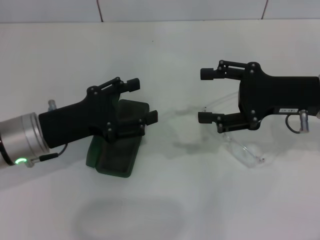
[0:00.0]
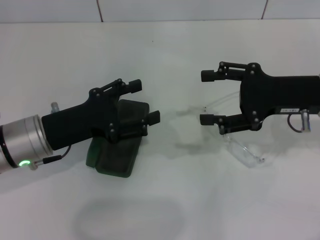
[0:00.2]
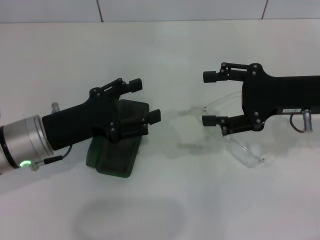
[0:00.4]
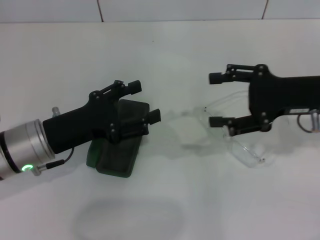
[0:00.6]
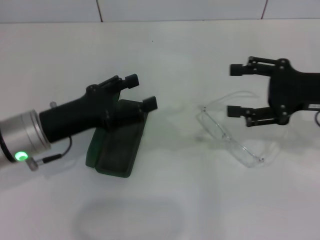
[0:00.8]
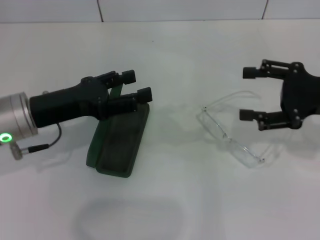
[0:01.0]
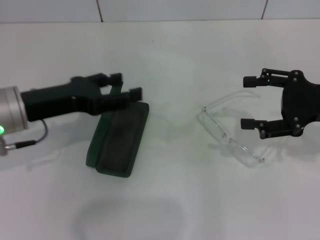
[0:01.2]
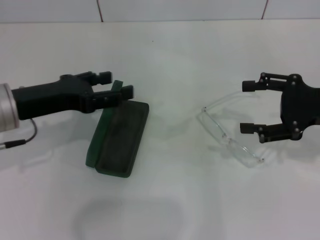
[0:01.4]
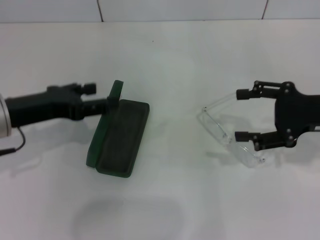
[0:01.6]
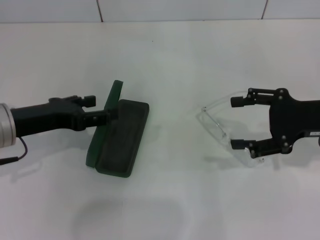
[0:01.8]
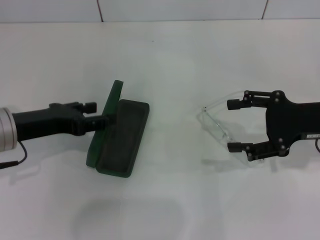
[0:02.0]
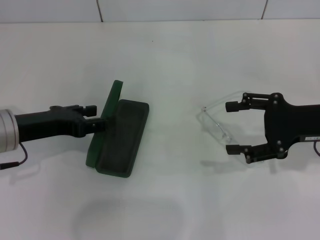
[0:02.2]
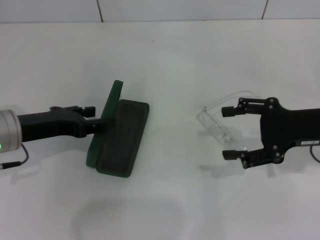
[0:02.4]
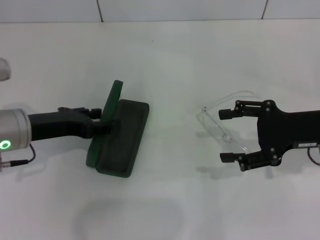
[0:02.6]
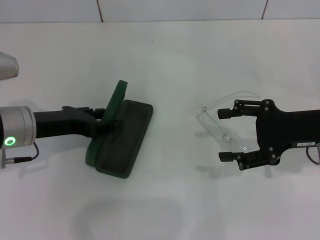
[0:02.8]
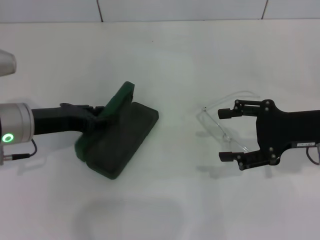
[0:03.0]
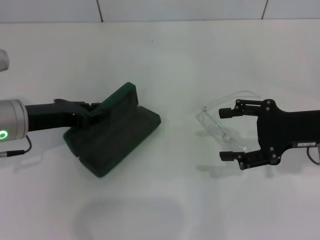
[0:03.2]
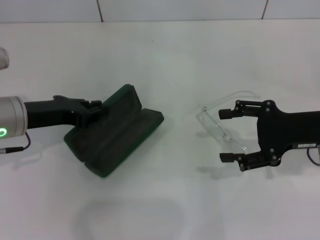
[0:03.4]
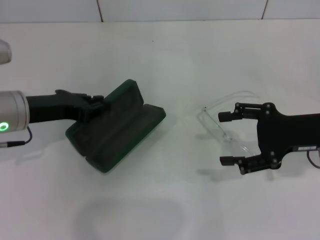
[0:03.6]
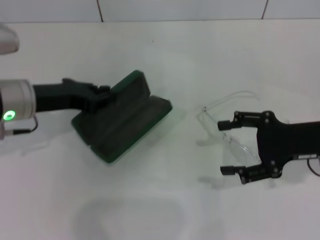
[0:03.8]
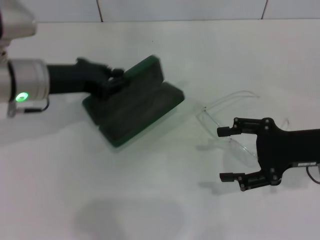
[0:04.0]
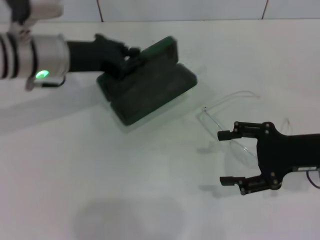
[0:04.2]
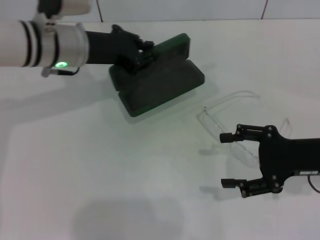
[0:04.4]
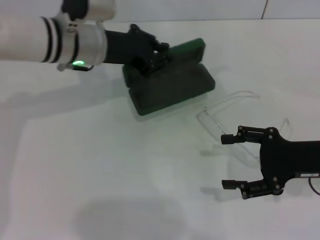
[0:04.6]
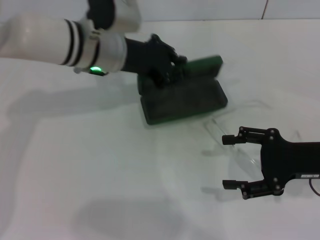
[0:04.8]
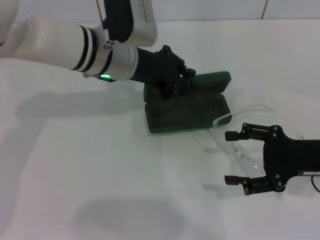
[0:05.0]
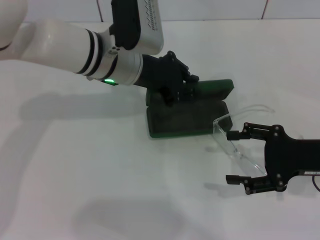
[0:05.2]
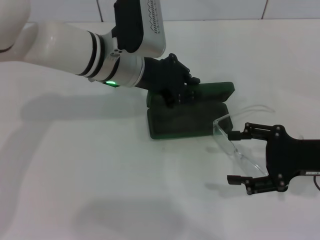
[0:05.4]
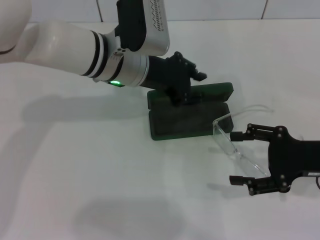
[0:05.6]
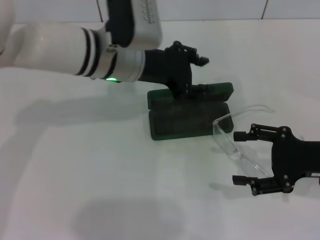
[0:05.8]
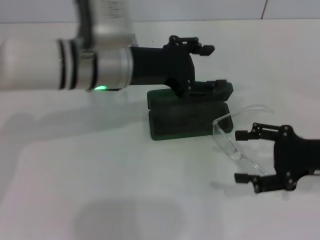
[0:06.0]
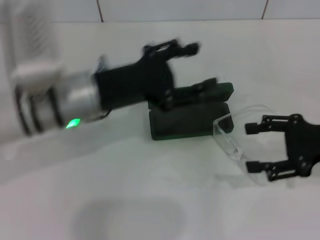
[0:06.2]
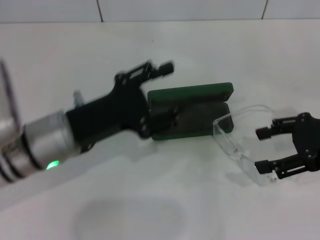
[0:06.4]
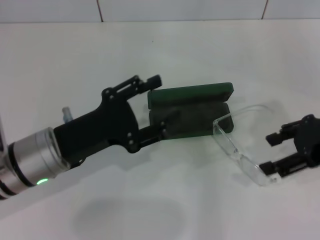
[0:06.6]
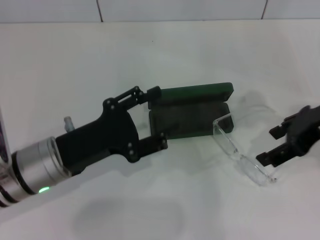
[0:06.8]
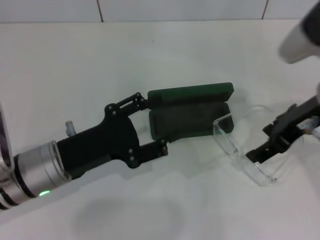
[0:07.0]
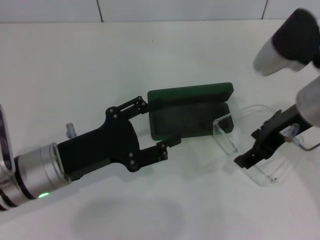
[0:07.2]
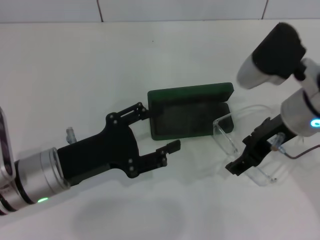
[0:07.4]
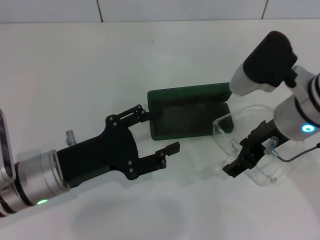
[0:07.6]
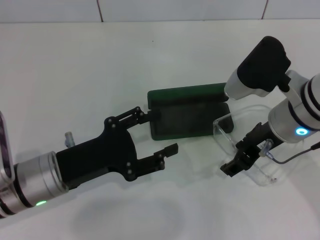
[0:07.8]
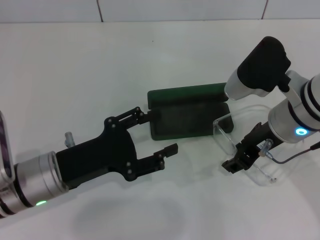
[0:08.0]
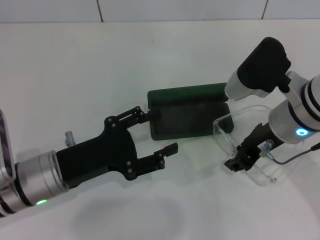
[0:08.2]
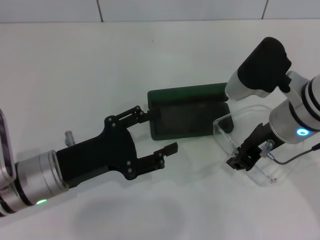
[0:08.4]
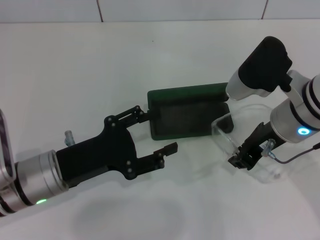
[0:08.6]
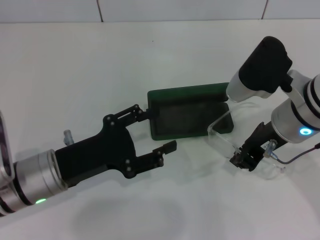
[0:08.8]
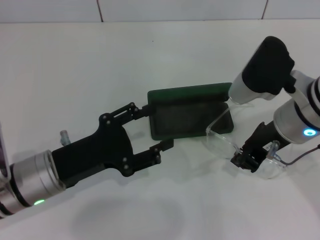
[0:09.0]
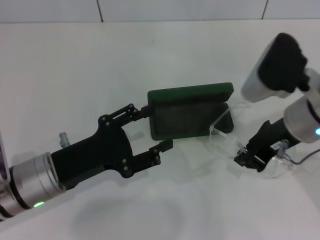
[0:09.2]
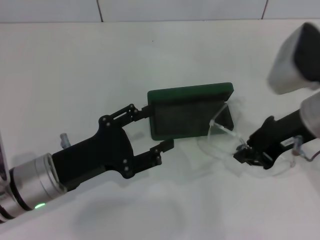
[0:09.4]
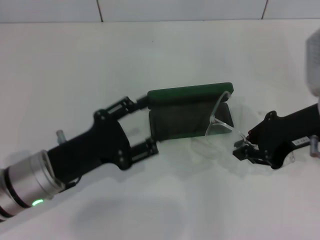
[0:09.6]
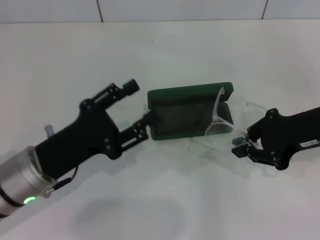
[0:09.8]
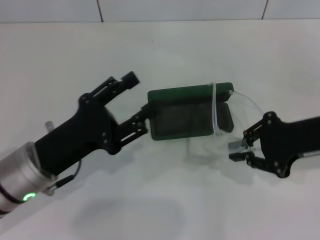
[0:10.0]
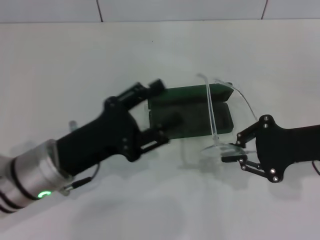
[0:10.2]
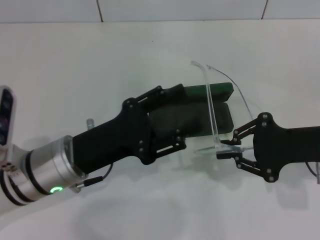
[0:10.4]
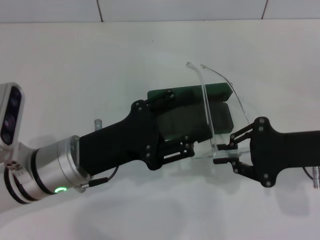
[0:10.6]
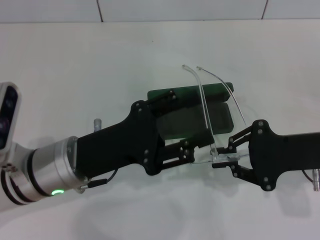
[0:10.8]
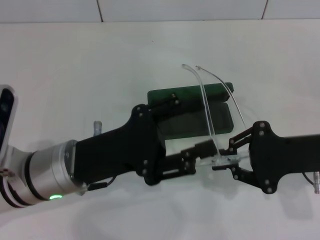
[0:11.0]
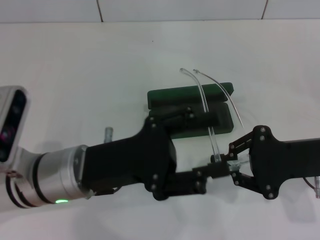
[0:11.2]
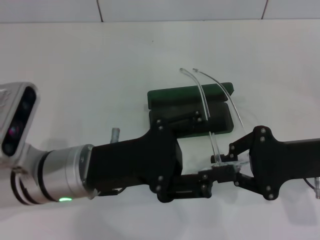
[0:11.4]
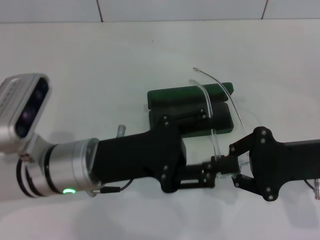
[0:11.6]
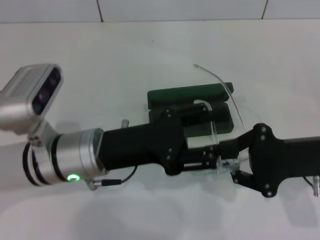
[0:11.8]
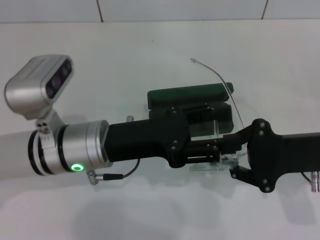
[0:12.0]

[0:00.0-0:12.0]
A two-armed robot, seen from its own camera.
Step, 0:00.0 to 0:03.4: Grab the glasses case with your left hand.
Step, 0:03.6 to 0:05.8: Place the glasses case in the center of the table with your left hand.
Step, 0:06.0 to 0:08.8: Grab the eyeglass frame with your right hand.
0:00.0 to 0:01.6: The right gripper shifts by some 5 cm. Meanwhile the left gripper ends up approximately 5 cm from where it was.
0:01.6 to 0:03.0: The grippers stay close to where they were, moving slightly.
0:03.0 to 0:04.4: The left gripper heads forward, to the right and upward, covering approximately 15 cm, and closes up.
0:04.4 to 0:06.0: The left gripper is displaced to the right by roughly 5 cm, and opens up.
0:06.0 to 0:07.6: The right gripper moves to the left and upward, approximately 15 cm. Meanwhile the left gripper heads backward, downward and to the left, covering roughly 15 cm.
0:07.6 to 0:09.0: The right gripper closes its fingers.
0:09.0 to 0:10.4: The right gripper is displaced to the right by some 10 cm.

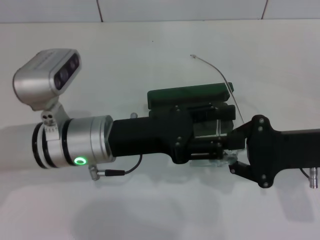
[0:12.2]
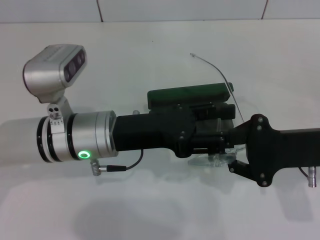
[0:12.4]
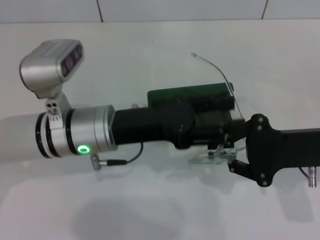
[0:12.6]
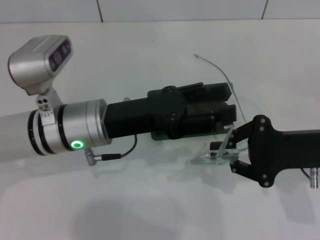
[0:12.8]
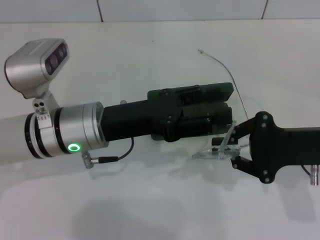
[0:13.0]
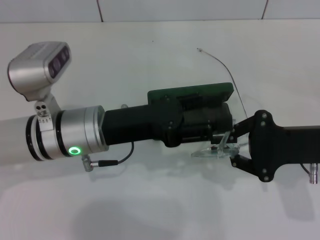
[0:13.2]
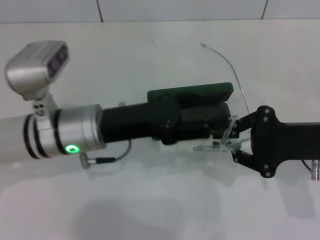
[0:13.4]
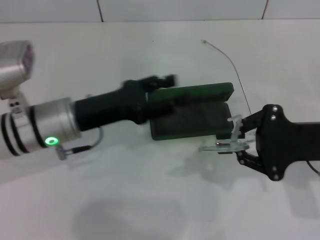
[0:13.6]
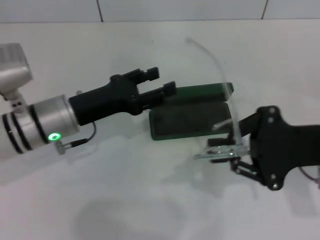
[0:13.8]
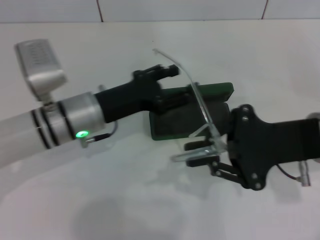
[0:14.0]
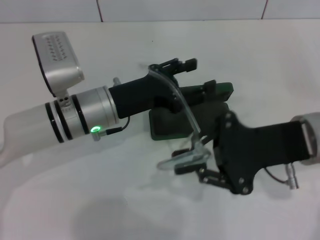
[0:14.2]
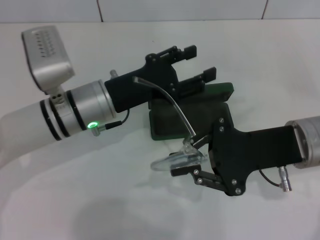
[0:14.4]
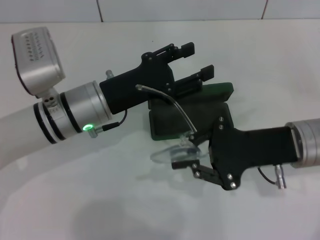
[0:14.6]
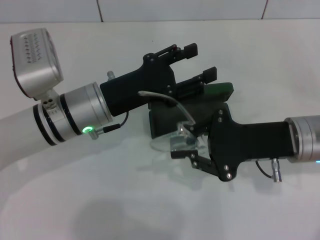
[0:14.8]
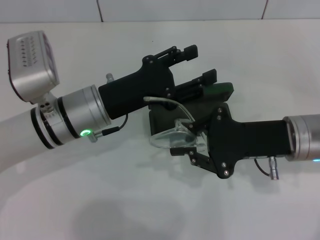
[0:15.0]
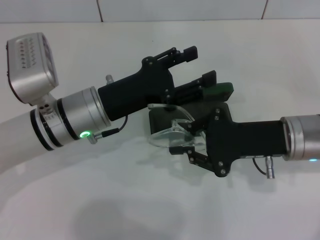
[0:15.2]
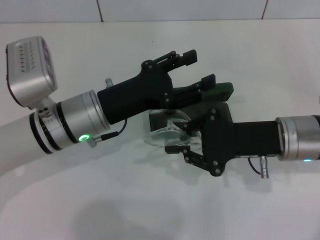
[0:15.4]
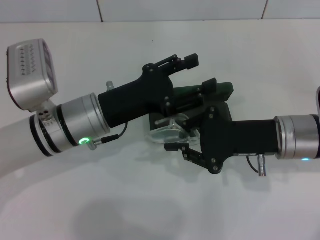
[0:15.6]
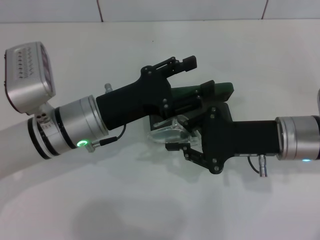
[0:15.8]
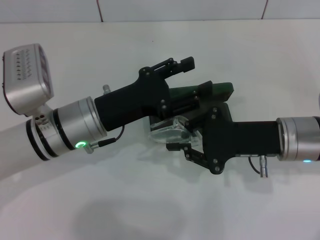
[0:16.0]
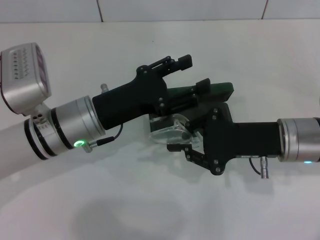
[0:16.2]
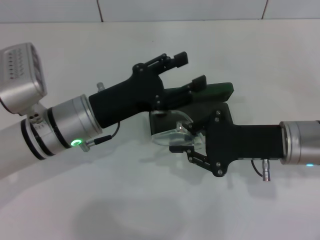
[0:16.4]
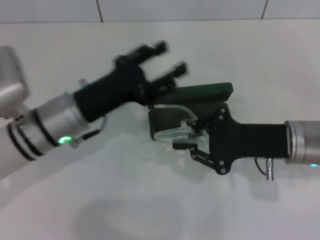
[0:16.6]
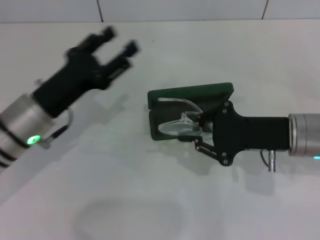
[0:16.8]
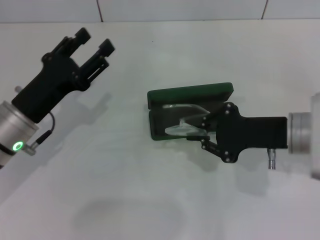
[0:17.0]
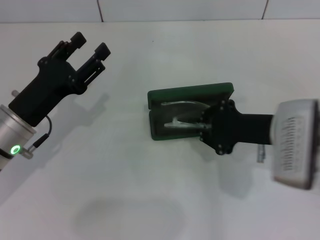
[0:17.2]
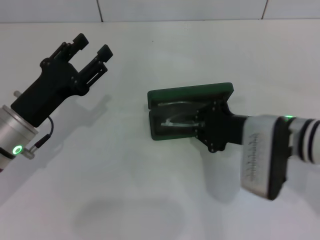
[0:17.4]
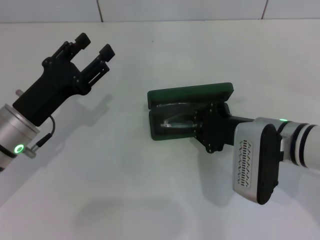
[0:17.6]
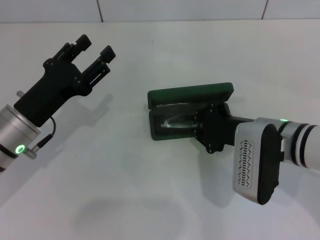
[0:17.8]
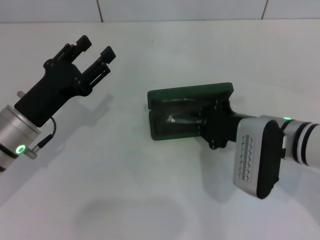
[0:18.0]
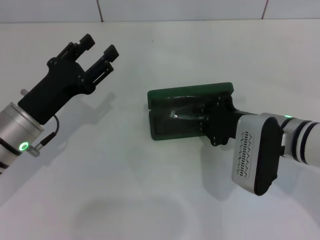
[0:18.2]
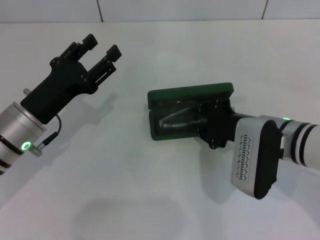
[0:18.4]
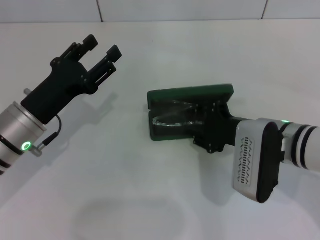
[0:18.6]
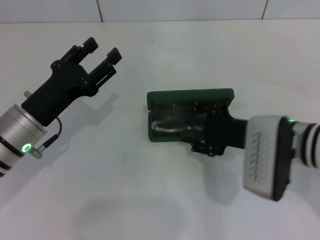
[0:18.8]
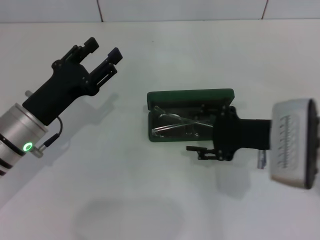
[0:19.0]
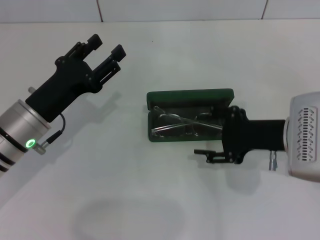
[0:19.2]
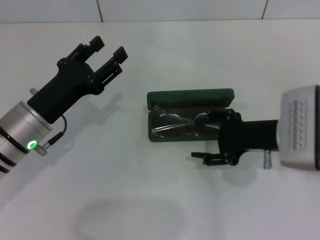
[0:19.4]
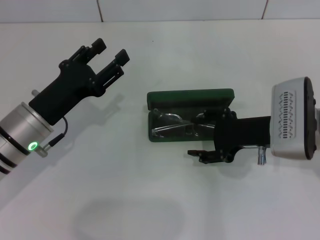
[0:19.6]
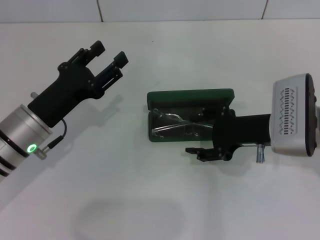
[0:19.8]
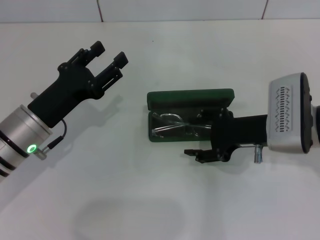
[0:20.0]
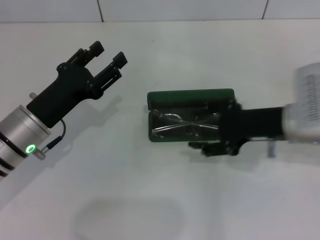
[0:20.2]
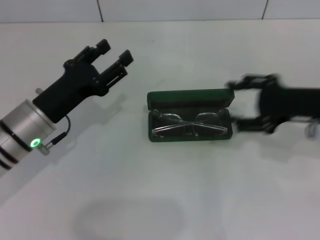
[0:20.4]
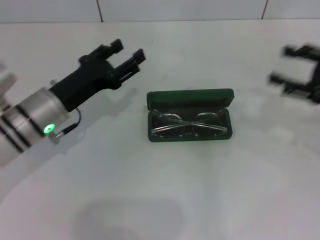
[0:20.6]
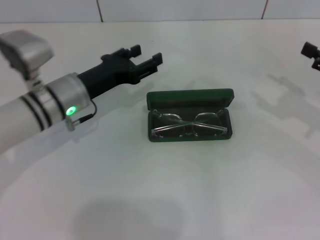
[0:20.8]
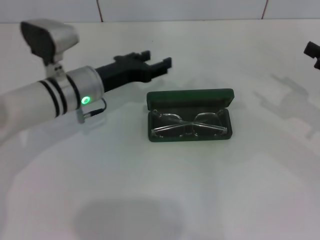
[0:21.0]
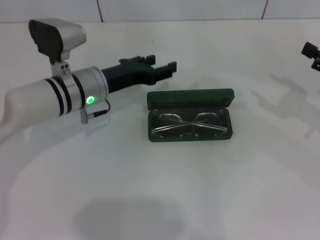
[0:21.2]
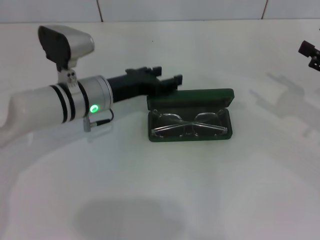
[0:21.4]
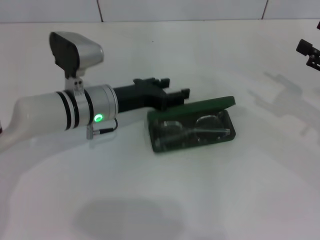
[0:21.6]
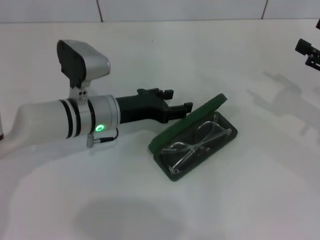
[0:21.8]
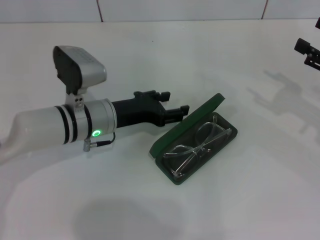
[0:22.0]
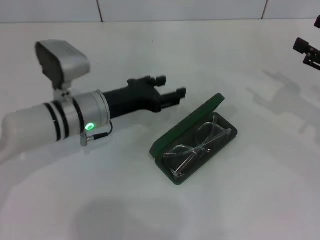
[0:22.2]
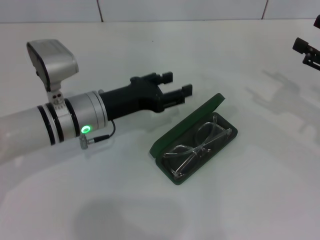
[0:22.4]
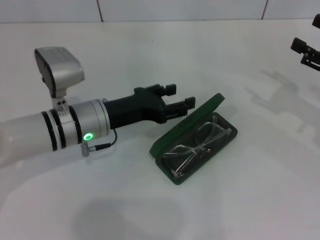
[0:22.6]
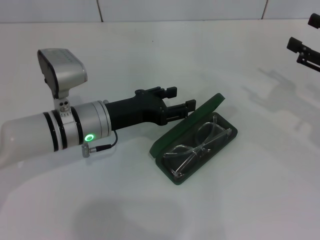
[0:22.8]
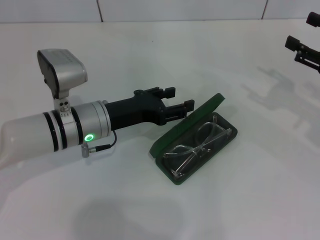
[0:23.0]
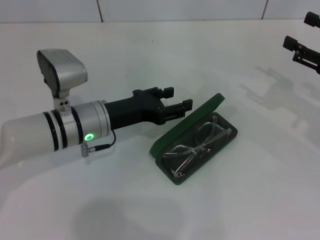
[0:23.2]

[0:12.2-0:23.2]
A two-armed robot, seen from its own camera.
Step, 0:12.2 to 0:15.8: Fold the frame with your left hand.
Step, 0:16.2 to 0:19.2: Put the glasses into the case with your right hand.
0:12.2 to 0:13.8: The left gripper goes about 5 cm to the left.
0:13.8 to 0:15.4: The right gripper shifts by some 5 cm.
0:15.4 to 0:17.0: The left gripper moves to the left, roughly 10 cm.
0:17.0 to 0:18.4: The right gripper changes place by some 5 cm.
0:18.4 to 0:20.0: The right gripper opens its fingers.
0:20.0 to 0:21.6: The right gripper shifts some 15 cm to the right. The left gripper is displaced to the right and forward by approximately 10 cm.
0:21.6 to 0:23.2: The grippers stay close to where they were, moving slightly.
